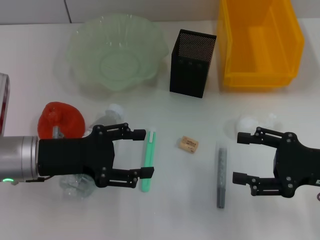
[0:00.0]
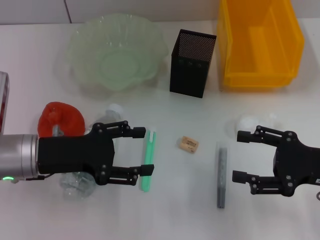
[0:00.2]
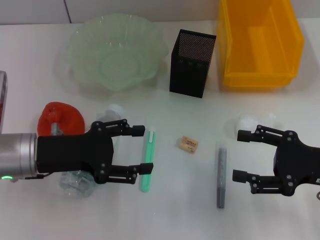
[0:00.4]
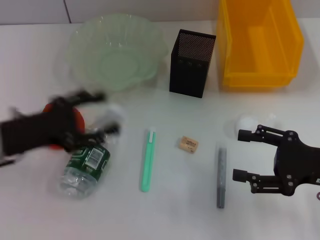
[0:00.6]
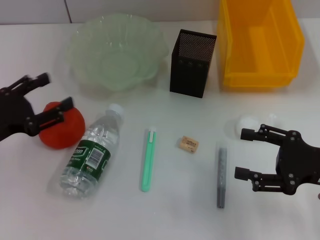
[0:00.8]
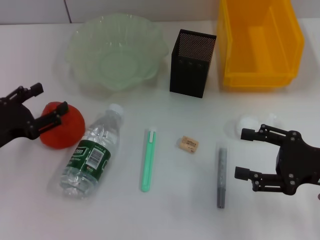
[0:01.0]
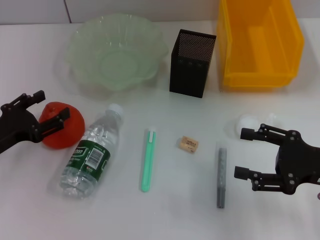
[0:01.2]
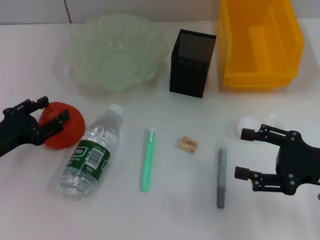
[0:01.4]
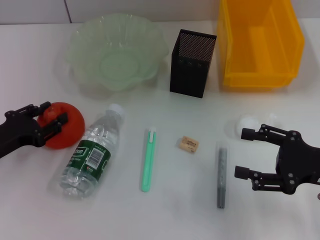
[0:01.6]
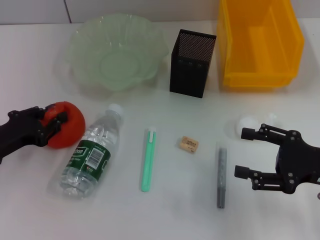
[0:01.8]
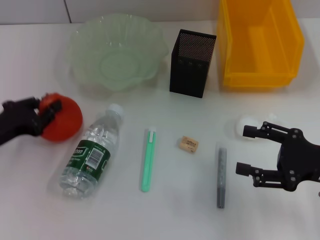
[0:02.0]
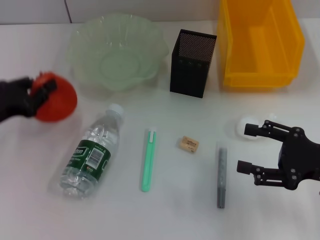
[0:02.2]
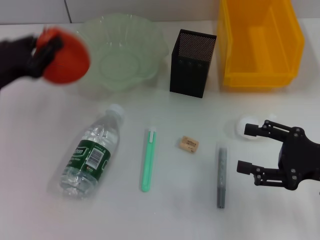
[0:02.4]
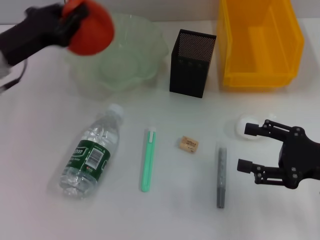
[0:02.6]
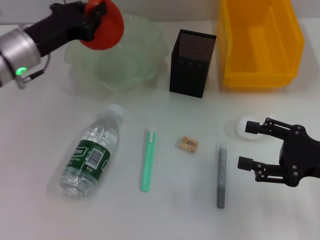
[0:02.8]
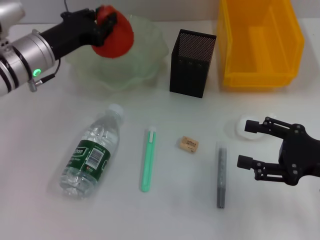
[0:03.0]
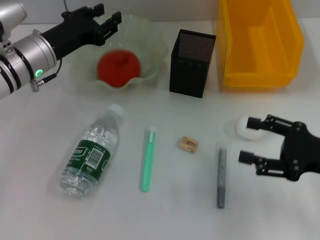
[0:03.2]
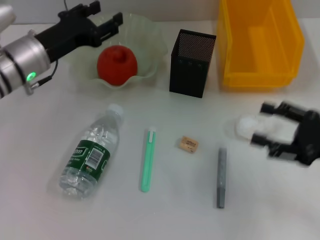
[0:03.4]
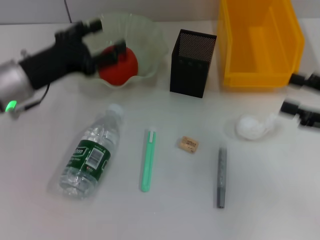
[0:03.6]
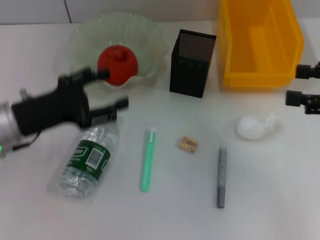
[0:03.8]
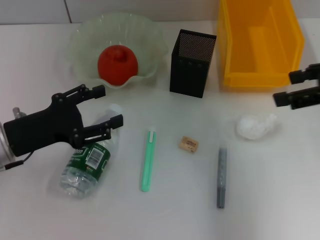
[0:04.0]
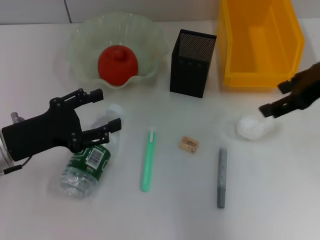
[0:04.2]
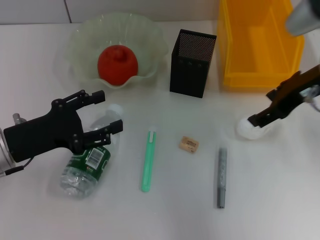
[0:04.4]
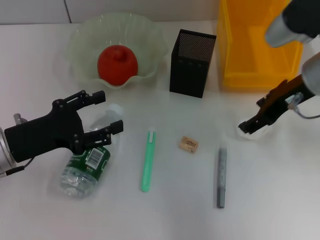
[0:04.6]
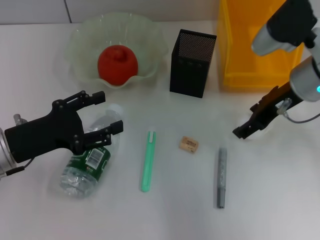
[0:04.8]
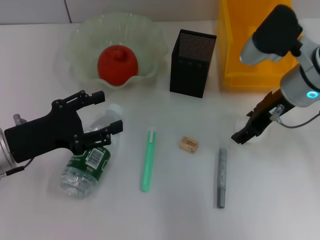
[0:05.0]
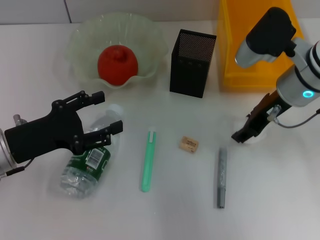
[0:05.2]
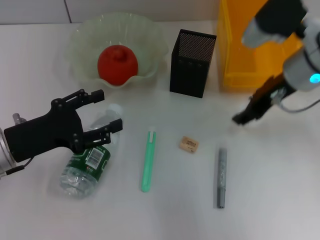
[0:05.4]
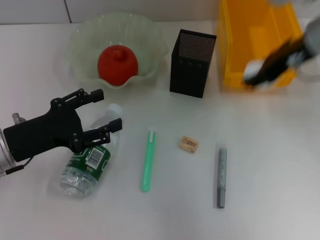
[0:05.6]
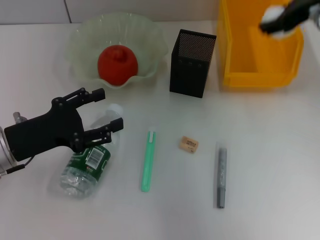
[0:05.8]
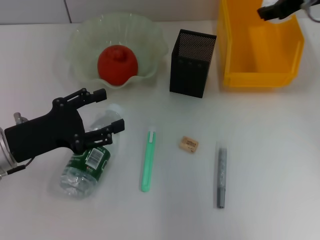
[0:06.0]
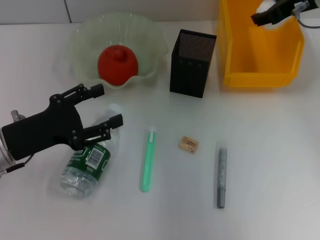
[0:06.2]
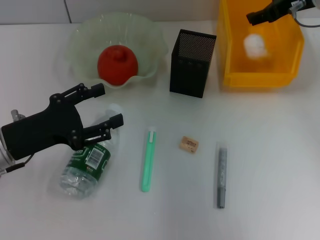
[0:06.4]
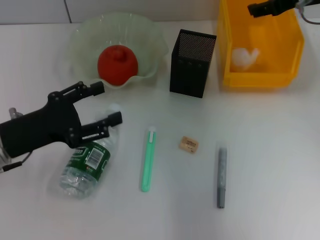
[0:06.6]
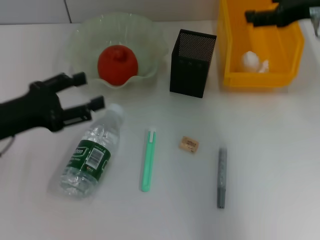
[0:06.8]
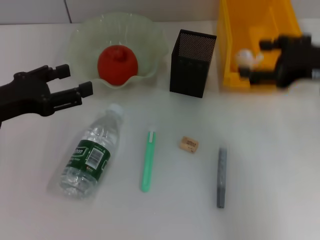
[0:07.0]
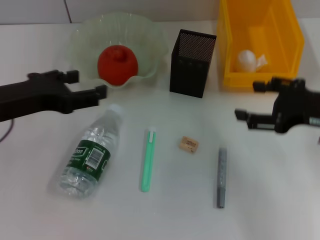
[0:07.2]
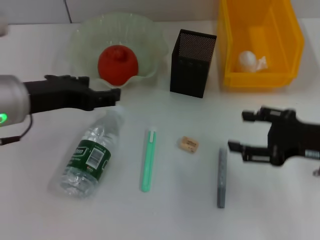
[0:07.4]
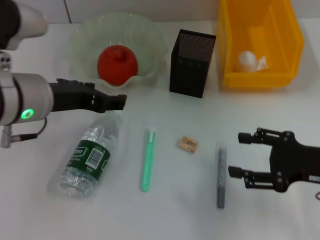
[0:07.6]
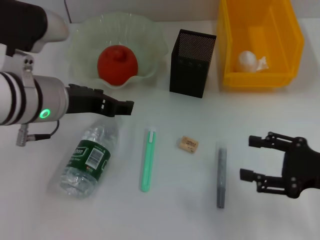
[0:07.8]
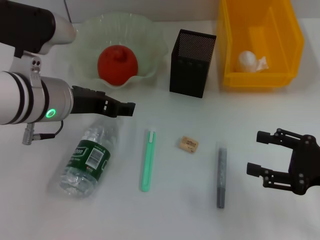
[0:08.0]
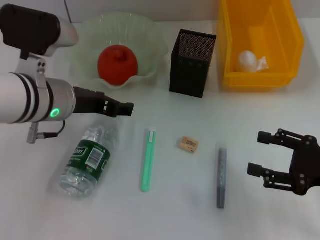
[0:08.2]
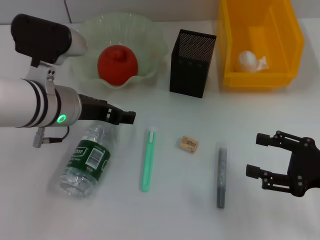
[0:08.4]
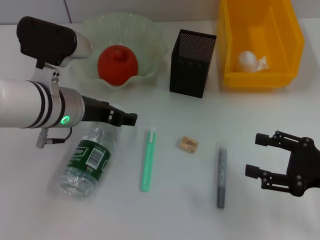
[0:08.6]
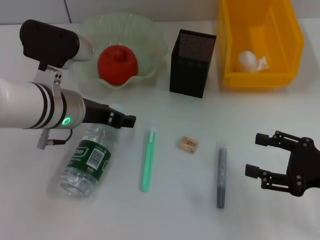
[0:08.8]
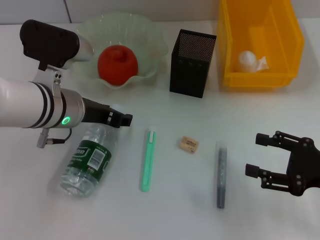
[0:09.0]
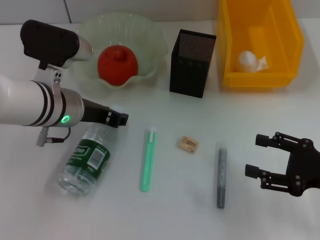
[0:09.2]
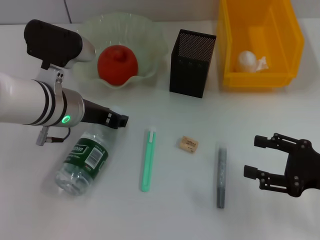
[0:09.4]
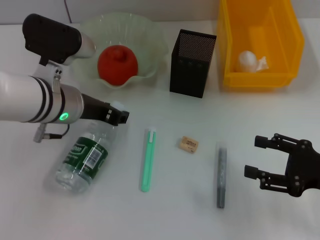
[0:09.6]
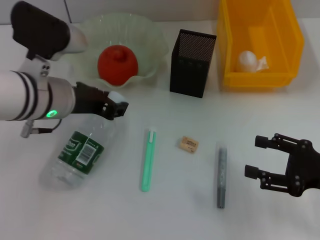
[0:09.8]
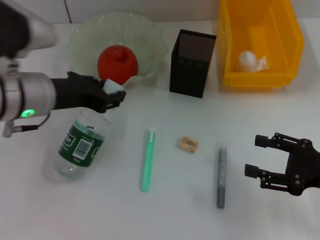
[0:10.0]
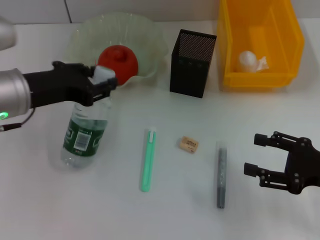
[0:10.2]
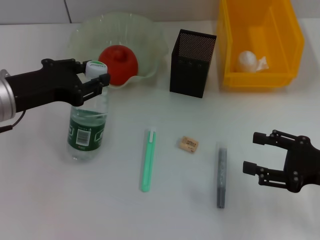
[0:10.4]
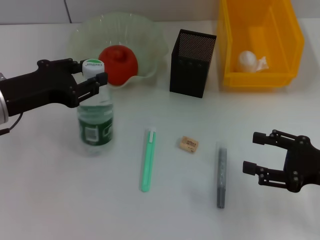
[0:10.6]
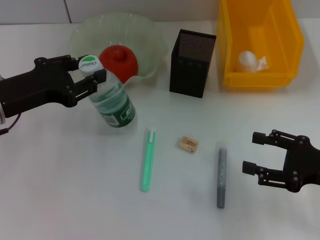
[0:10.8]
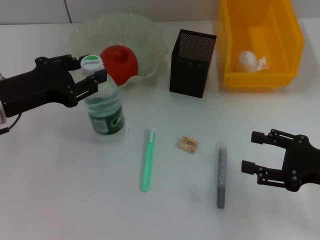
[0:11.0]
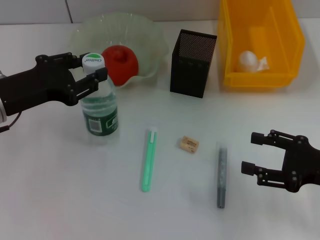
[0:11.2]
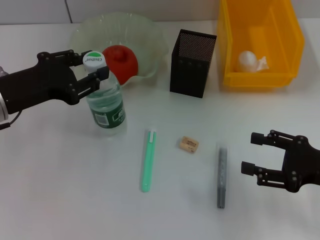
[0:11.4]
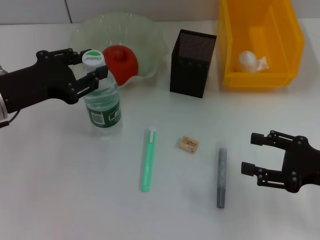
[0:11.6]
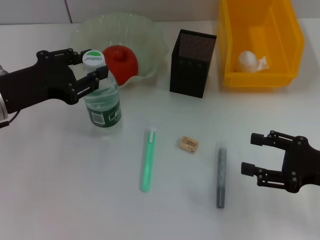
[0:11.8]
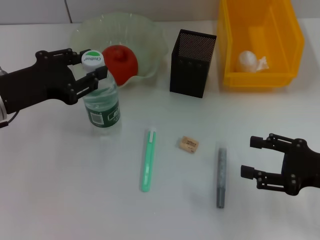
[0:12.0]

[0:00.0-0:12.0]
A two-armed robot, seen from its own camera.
Step, 0:00.0 to 0:01.8: Grab the orange with the left hand.
Step, 0:02.0 to 0:03.2: Place the orange into the fruit bowl with the left hand.
Step, 0:03.4 to 0:05.0: Grab the paper ball with the right hand.
Step, 0:05.2 to 0:06.4: Place the paper ball into the trash can with the right hand.
Step, 0:06.6 to 0:09.2: Grab the water bottle with the left hand.
0:00.0 to 0:01.6: The left gripper is displaced to the left by about 10 cm, and closes.
0:01.6 to 0:03.0: The left gripper travels forward, to the right and upward by roughly 20 cm, and closes up.
0:03.0 to 0:04.4: The left gripper is displaced backward by approximately 15 cm, and opens up. The right gripper travels upward, forward and to the left by roughly 20 cm.
0:04.4 to 0:06.0: The right gripper shifts some 10 cm forward, and travels upward and back again, approximately 5 cm each way.
0:06.0 to 0:07.6: The left gripper moves upward and to the right, roughly 15 cm. Meanwhile the right gripper is displaced backward and downward by about 25 cm.
0:07.6 to 0:09.0: The left gripper moves downward, about 5 cm.
0:09.0 to 0:10.4: The left gripper is displaced to the left by roughly 10 cm, and closes its fingers.
0:10.4 to 0:12.0: The grippers stay close to where they were, moving slightly.

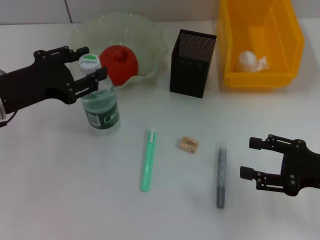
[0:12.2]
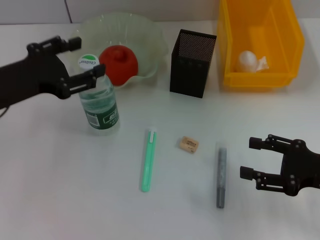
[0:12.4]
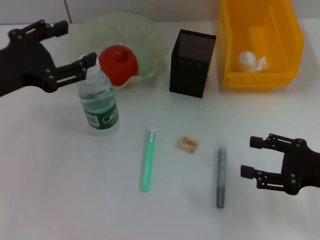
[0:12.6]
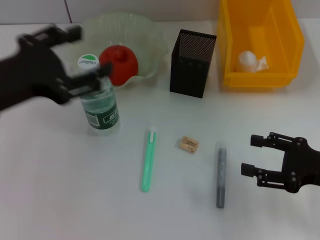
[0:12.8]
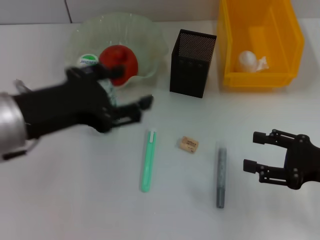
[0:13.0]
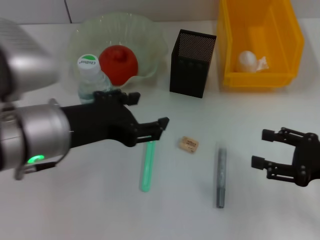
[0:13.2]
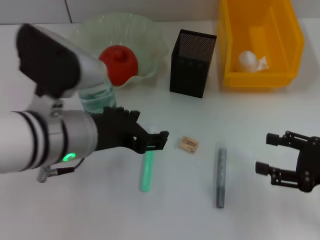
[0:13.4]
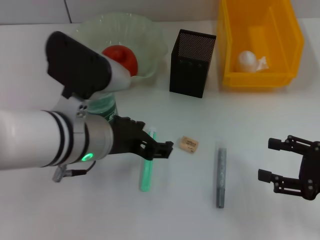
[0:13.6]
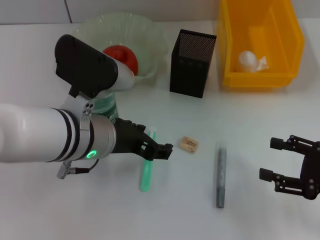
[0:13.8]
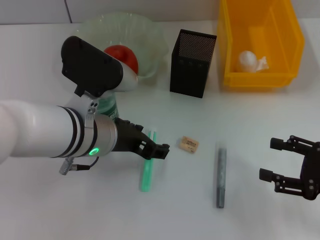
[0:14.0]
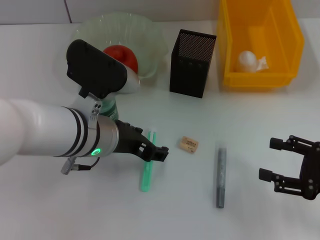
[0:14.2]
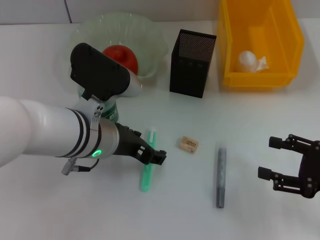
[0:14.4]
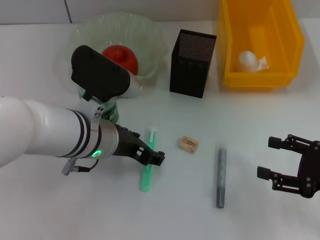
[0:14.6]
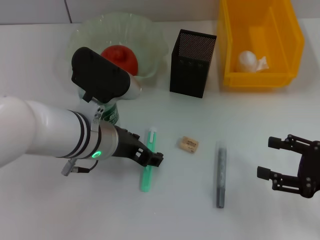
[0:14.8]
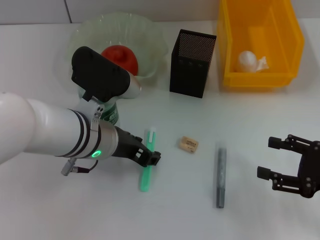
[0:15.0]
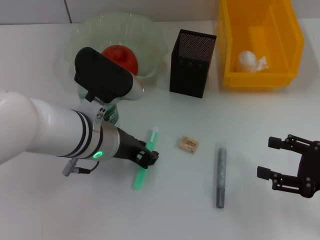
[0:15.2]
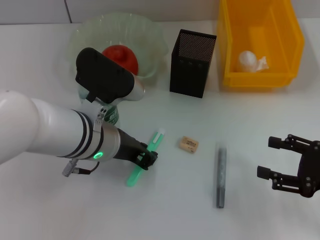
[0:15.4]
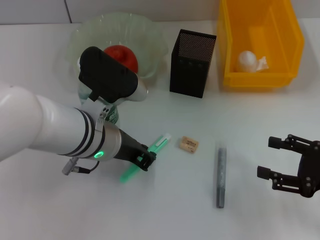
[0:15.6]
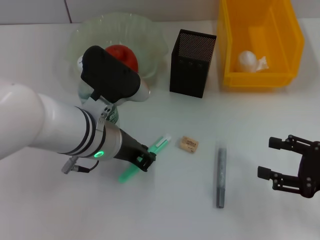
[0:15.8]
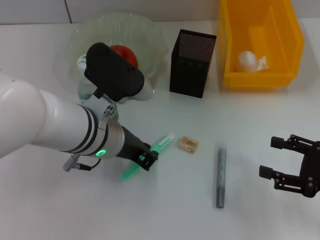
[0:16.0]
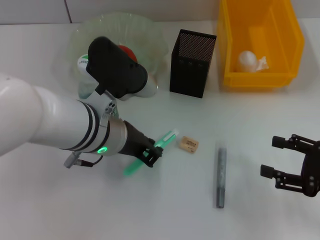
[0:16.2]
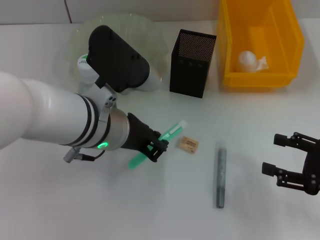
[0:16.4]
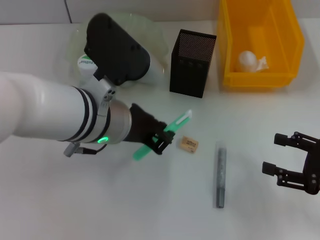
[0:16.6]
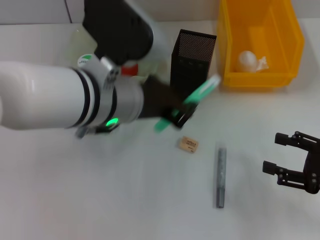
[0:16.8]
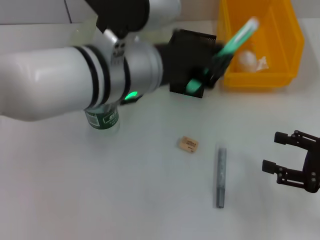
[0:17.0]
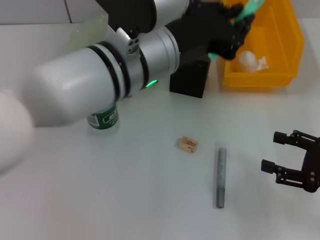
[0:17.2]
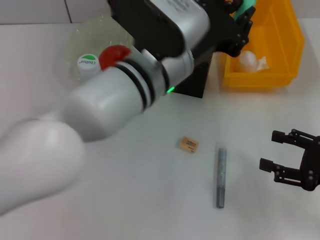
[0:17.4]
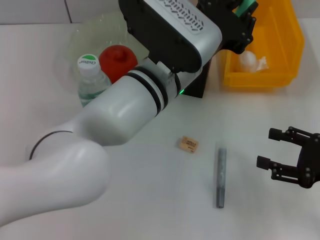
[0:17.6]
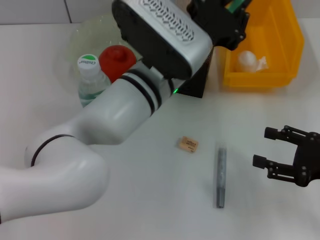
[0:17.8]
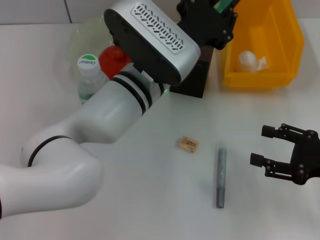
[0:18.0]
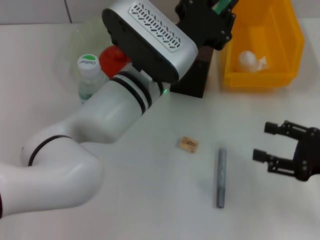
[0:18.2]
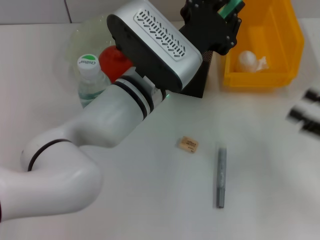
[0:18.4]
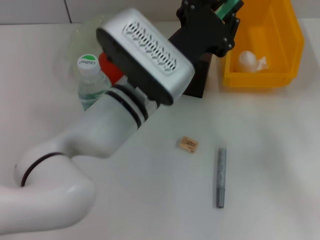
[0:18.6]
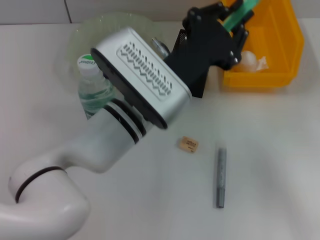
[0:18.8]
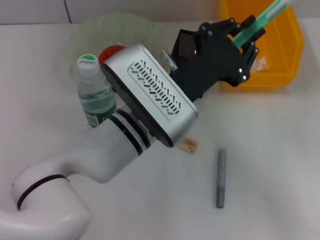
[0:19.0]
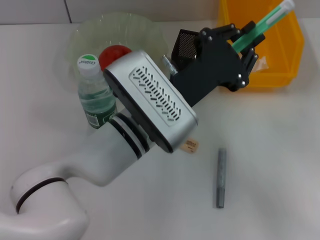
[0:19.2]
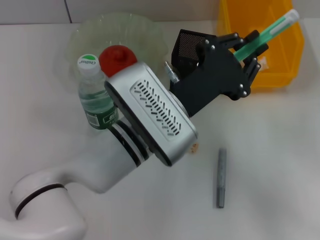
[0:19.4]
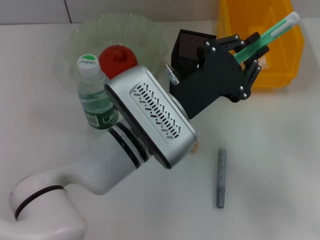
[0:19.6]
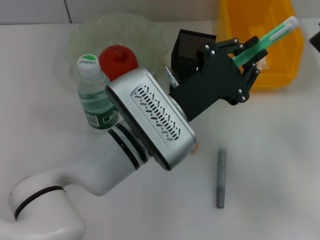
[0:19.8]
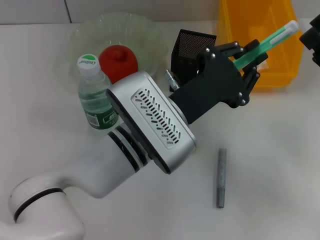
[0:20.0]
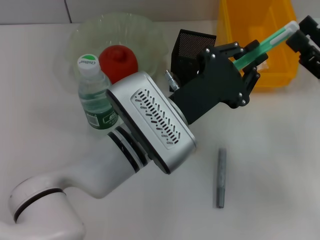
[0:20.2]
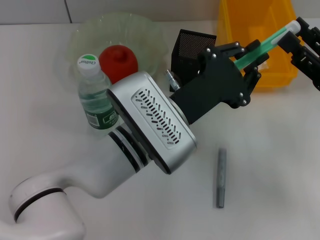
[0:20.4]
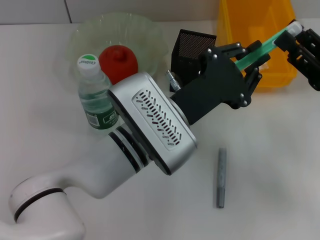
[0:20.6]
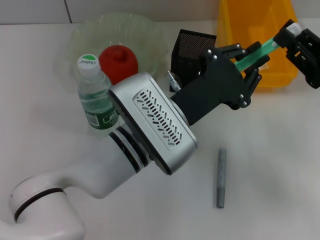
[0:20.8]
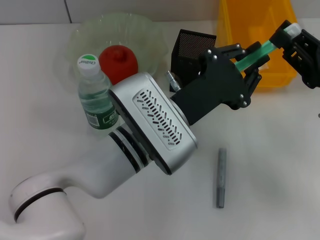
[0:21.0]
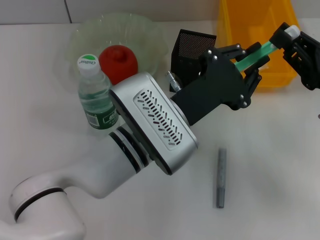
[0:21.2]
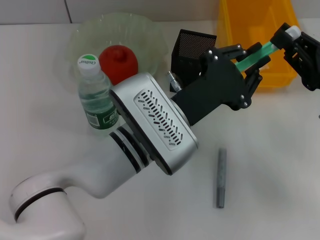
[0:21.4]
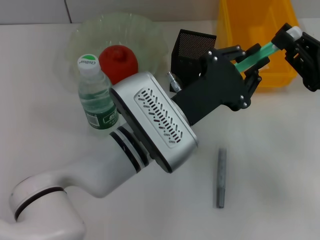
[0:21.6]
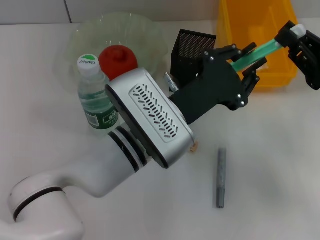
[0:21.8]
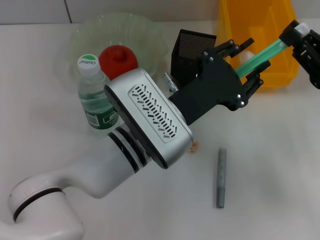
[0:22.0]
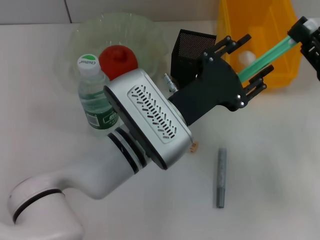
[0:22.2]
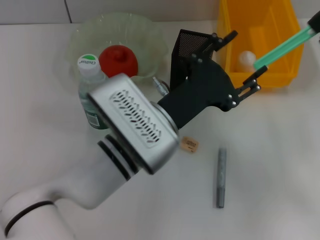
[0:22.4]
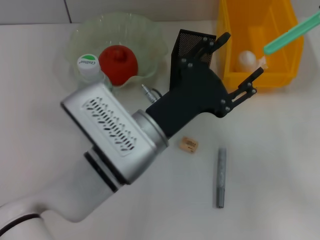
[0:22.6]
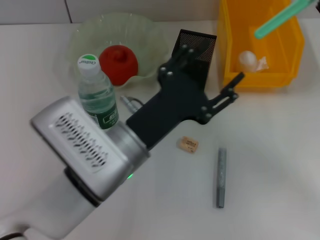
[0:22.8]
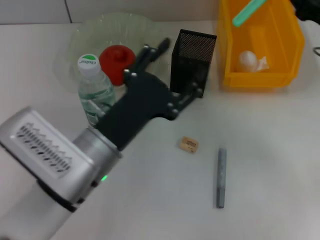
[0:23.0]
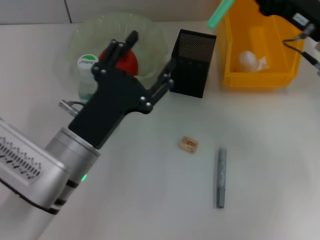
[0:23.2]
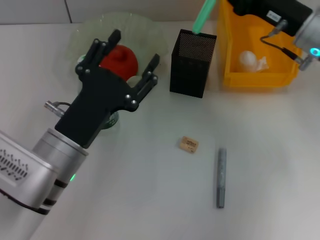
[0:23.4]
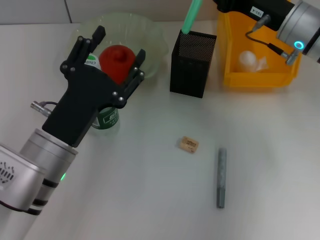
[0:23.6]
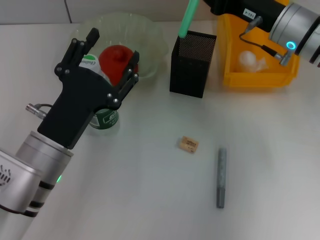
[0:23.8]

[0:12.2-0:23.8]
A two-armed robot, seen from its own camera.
Step, 0:12.4 to 0:15.8: Grab the blue utility knife with the left hand.
Step, 0:16.0 to 0:21.8: Pass the blue utility knife from the left hand to the right hand.
0:12.2 to 0:13.6: The left gripper travels to the right by roughly 15 cm.
0:13.6 to 0:15.0: The left gripper ends up some 5 cm from where it was.
0:15.0 to 0:16.6: The left gripper moves some 5 cm, and closes up.
0:16.6 to 0:18.0: The left gripper heads to the right, covering roughly 5 cm.
0:18.0 to 0:19.4: The left gripper travels backward by approximately 5 cm.
0:19.4 to 0:21.0: The right gripper moves some 5 cm, and closes its fingers.
0:21.0 to 0:22.4: The left gripper opens its fingers. The right gripper closes.
0:22.4 to 0:23.8: The left gripper travels to the left by approximately 10 cm. Meanwhile the right gripper goes roughly 20 cm forward and to the left.
